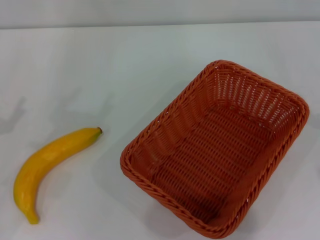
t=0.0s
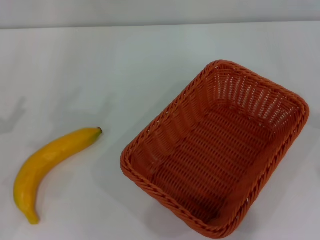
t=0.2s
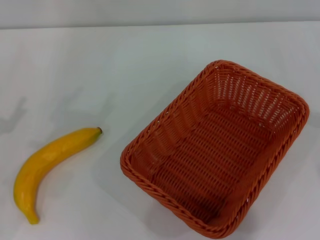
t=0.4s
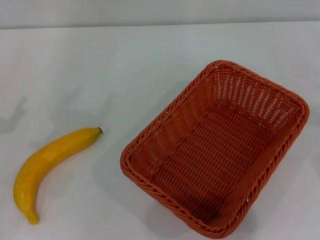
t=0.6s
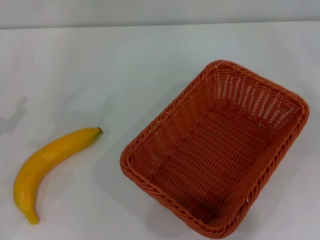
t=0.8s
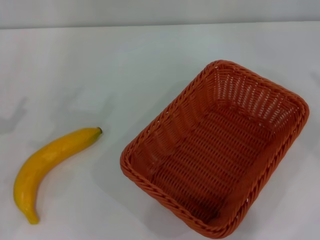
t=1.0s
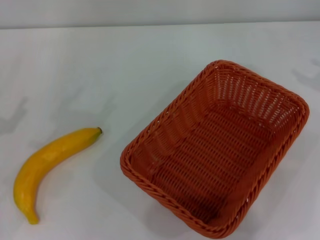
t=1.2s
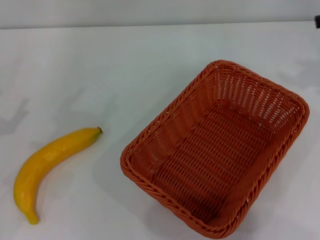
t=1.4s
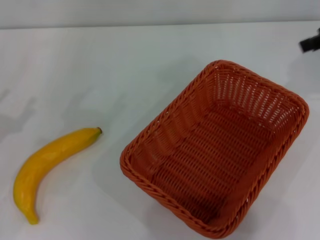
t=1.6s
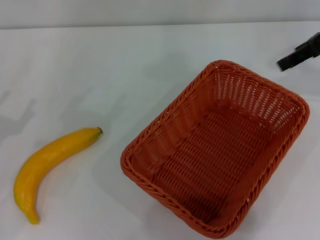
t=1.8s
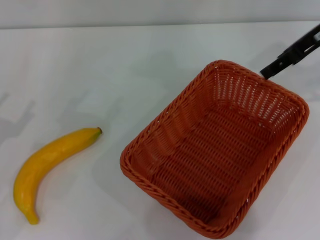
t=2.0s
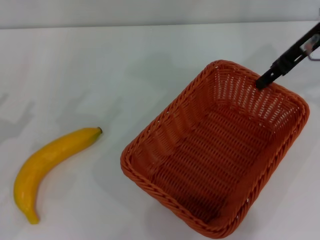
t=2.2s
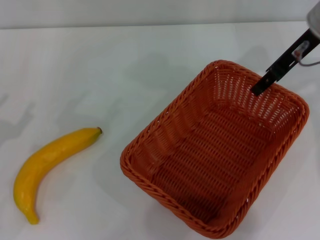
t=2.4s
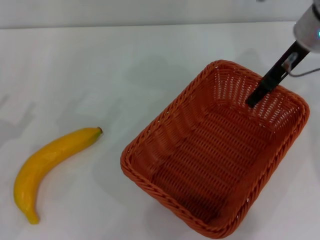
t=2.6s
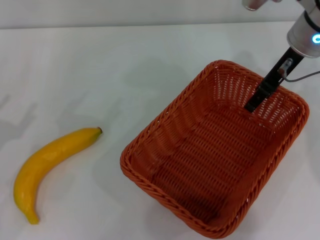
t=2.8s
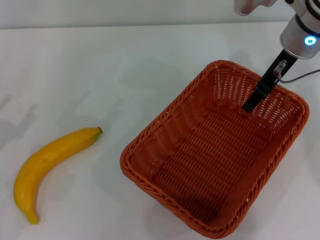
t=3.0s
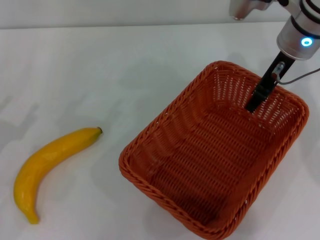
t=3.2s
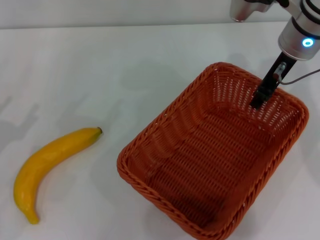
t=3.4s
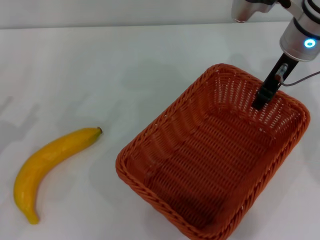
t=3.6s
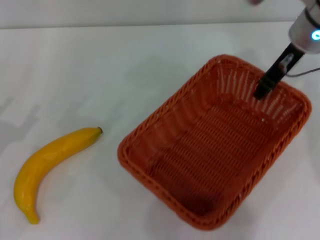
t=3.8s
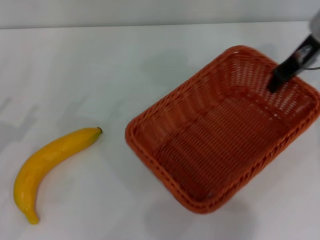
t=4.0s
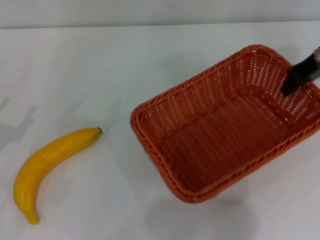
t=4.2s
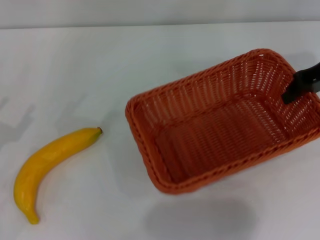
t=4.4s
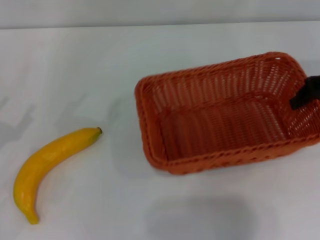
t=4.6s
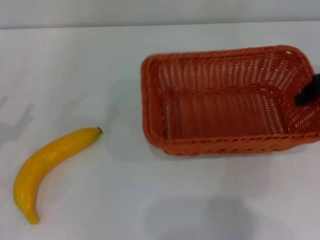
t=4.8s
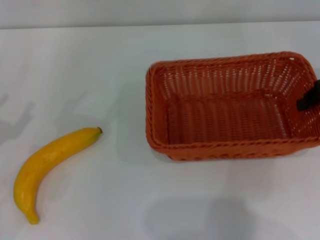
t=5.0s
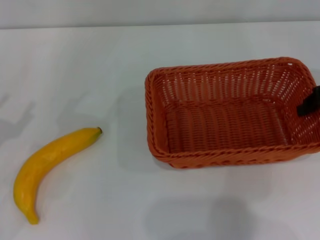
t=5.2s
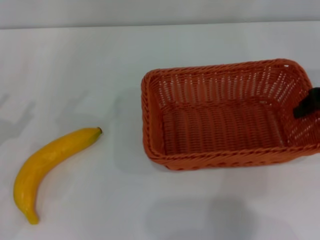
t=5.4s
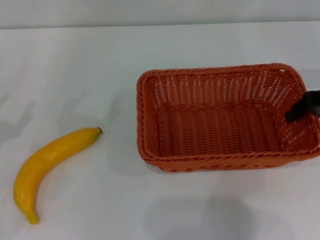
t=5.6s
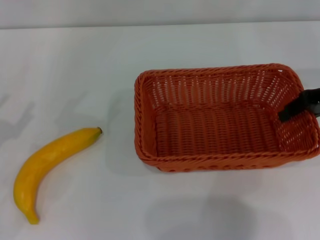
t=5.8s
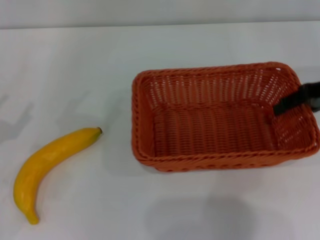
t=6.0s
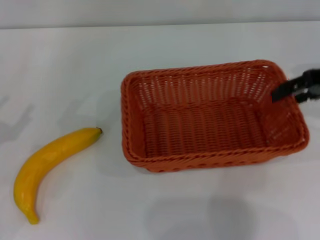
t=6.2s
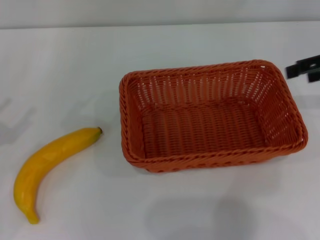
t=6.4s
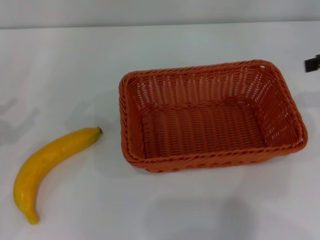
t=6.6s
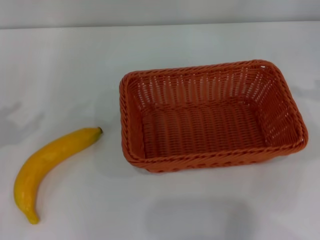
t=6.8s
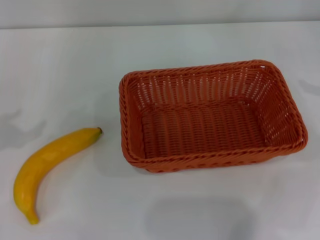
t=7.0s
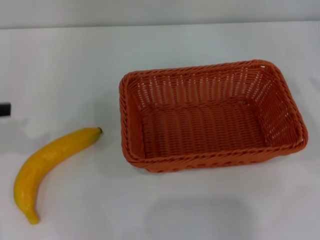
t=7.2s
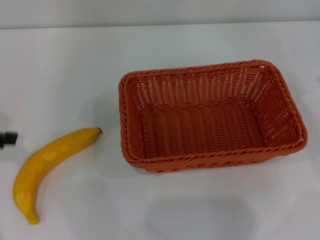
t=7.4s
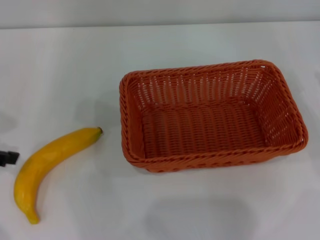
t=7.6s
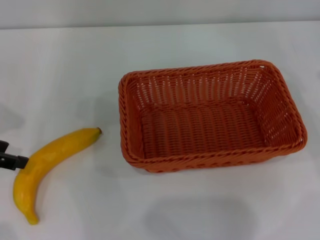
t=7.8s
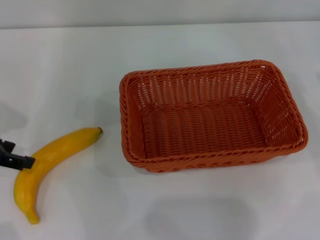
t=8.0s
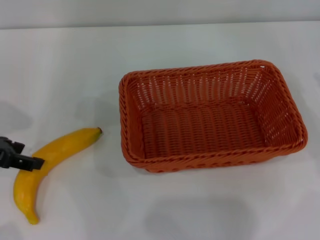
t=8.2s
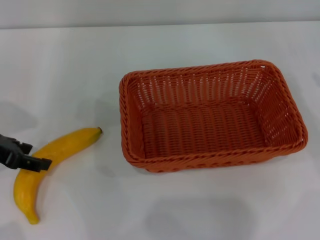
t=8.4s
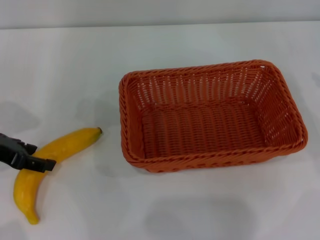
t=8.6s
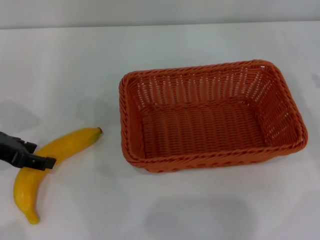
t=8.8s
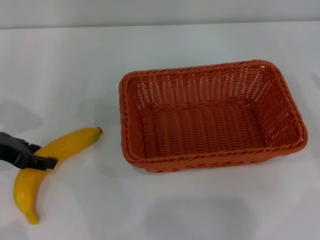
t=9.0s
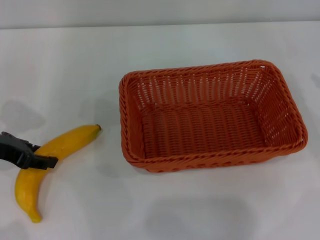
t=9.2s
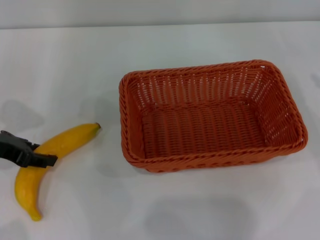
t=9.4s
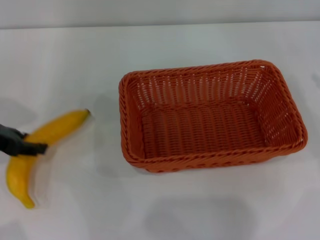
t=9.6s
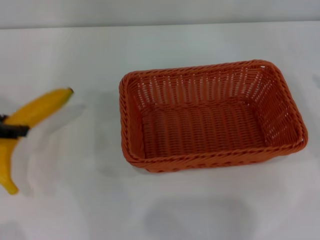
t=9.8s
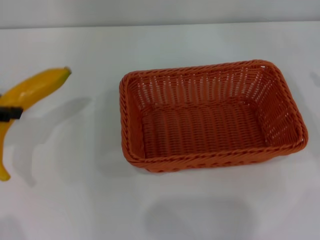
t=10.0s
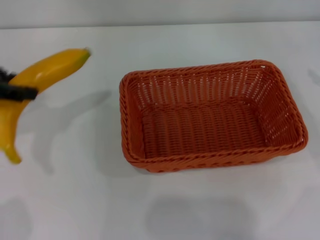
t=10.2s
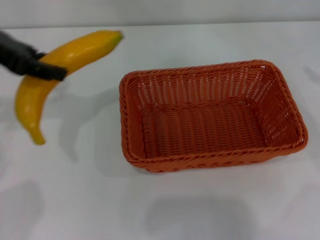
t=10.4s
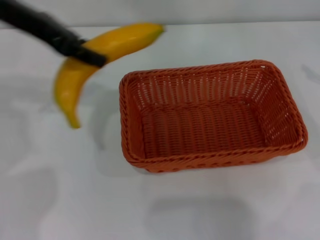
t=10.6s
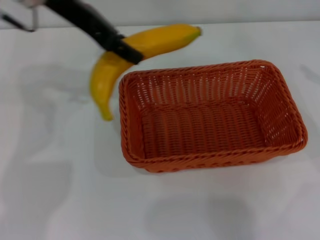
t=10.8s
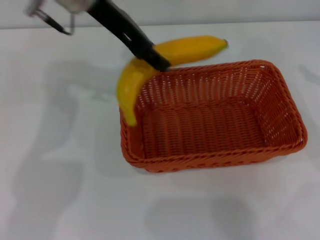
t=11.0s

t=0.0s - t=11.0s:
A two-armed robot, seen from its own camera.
Step, t=0.0s - t=3.8s: Pick up the light basket with the right gripper.
Step, t=4.0s - t=6.2s: Place the light basket in the center of view with the right gripper.
Step, t=6.4s - t=9.6s: Pick up the banana with the left gripper.
t=1.6s - t=3.2s: The right gripper travels to the left and downward by roughly 15 cm.
t=3.2s - t=4.8s: The right gripper moves to the right and backward, roughly 15 cm, and closes up.
t=4.8s - t=6.2s: The right gripper opens.
t=6.2s - t=7.8s: The left gripper is displaced forward and upward by some 10 cm. Meanwhile the right gripper shifts approximately 15 cm to the right and backward.
t=7.8s - t=9.4s: The left gripper shifts by some 5 cm, and closes up.
t=9.4s - t=11.0s: The left gripper shifts about 25 cm to the right, upward and forward.

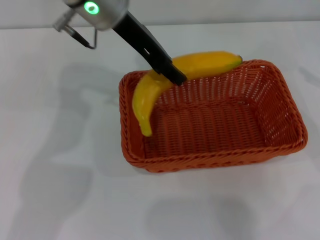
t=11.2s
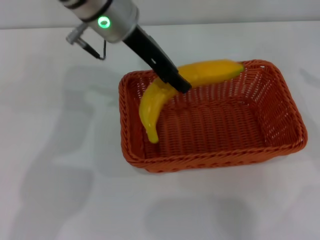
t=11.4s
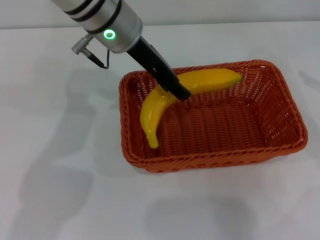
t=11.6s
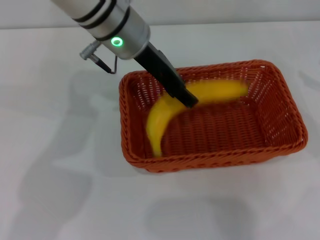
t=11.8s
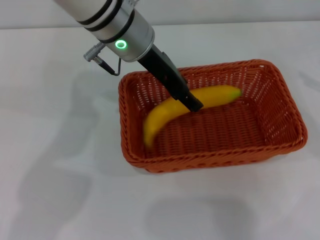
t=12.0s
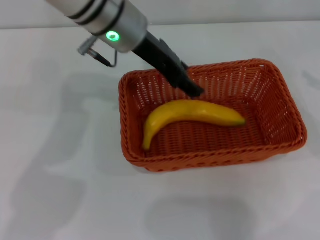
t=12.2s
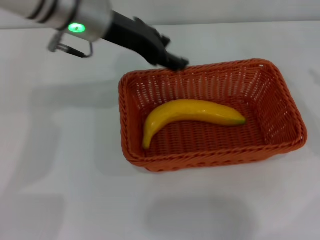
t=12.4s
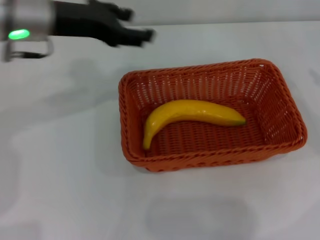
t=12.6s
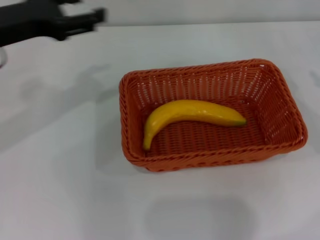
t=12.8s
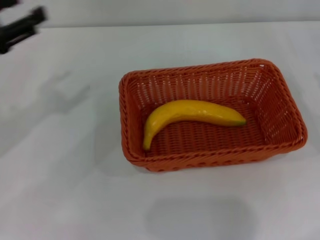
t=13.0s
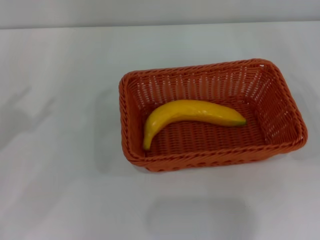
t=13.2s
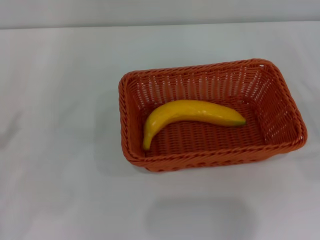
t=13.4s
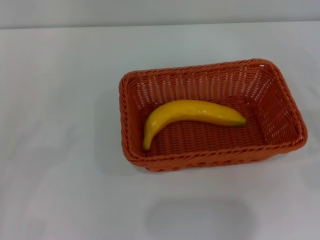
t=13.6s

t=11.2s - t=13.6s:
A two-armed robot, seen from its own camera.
t=11.2s - t=12.4s: The left gripper opens up.
t=12.4s - t=13.6s: The right gripper heads downward and backward, covering approximately 15 cm. Meanwhile the left gripper moves to the left, backward and downward, approximately 40 cm.

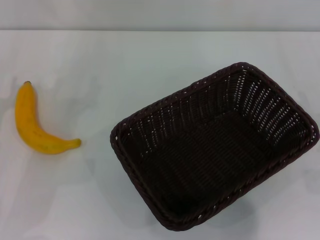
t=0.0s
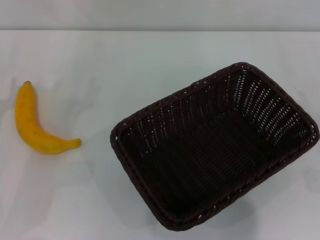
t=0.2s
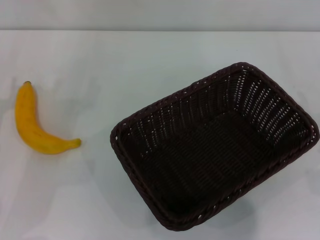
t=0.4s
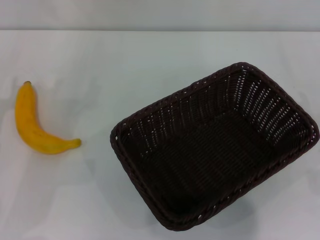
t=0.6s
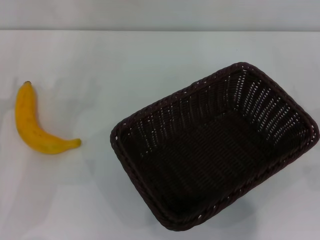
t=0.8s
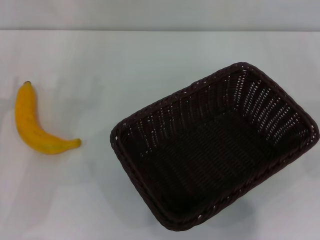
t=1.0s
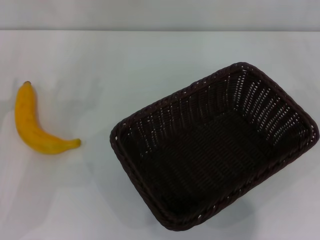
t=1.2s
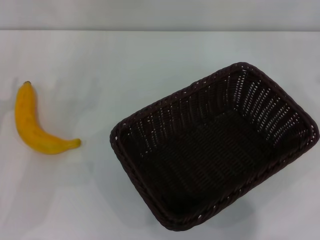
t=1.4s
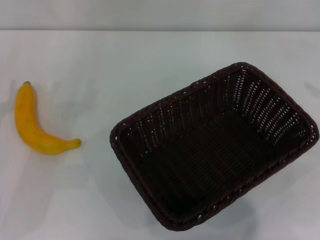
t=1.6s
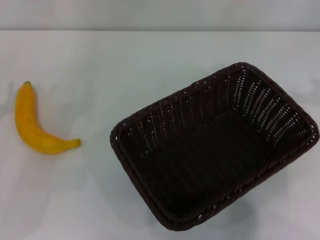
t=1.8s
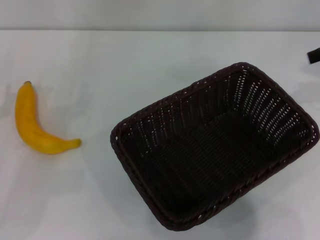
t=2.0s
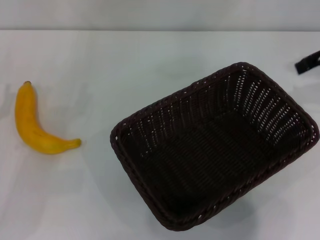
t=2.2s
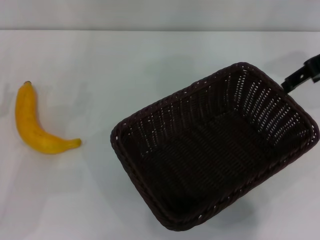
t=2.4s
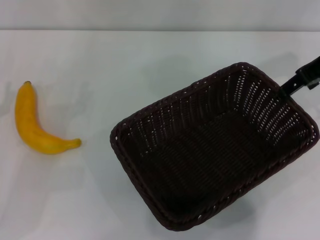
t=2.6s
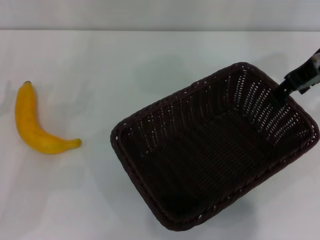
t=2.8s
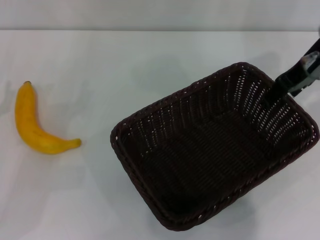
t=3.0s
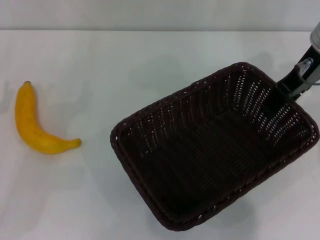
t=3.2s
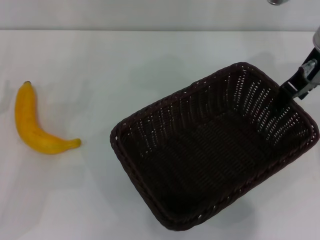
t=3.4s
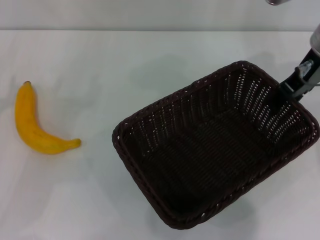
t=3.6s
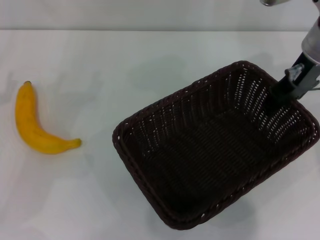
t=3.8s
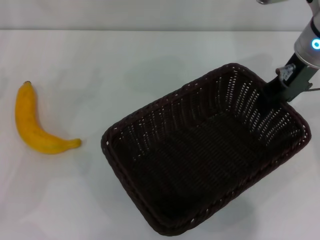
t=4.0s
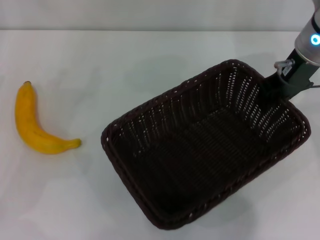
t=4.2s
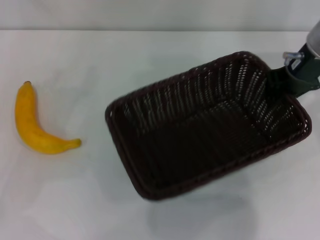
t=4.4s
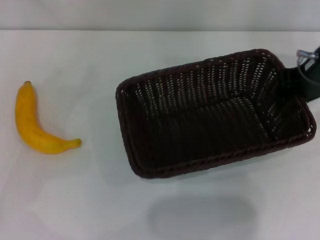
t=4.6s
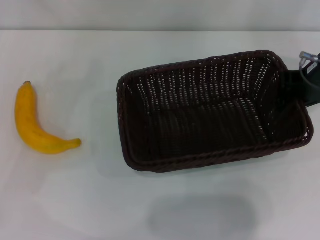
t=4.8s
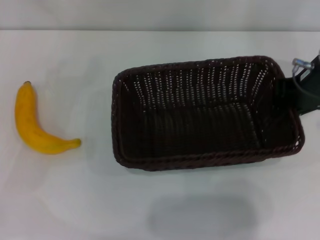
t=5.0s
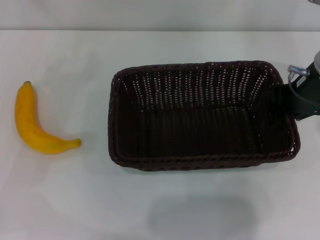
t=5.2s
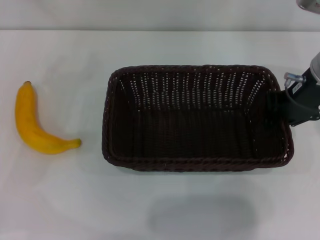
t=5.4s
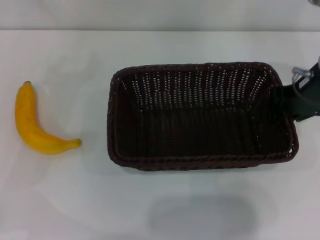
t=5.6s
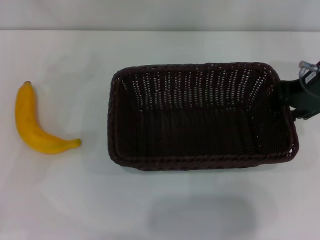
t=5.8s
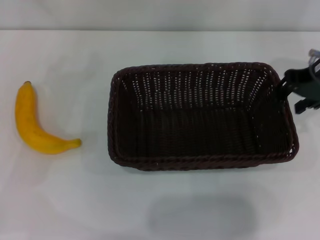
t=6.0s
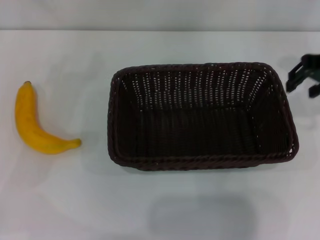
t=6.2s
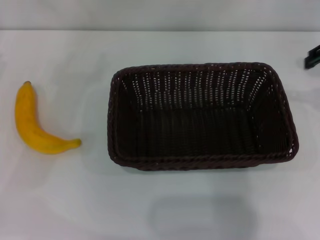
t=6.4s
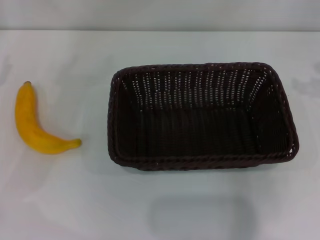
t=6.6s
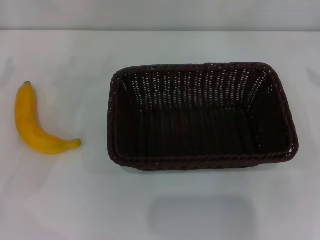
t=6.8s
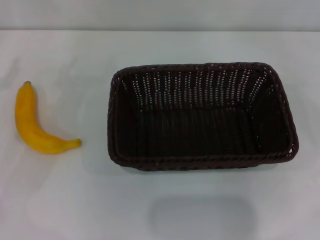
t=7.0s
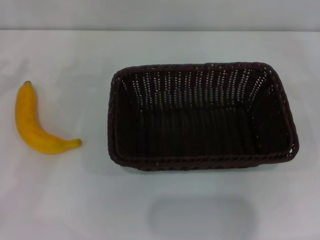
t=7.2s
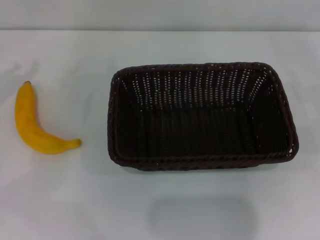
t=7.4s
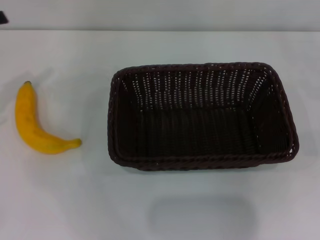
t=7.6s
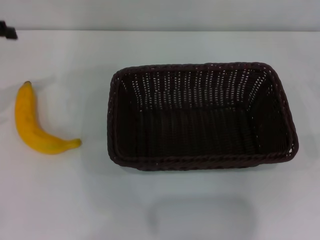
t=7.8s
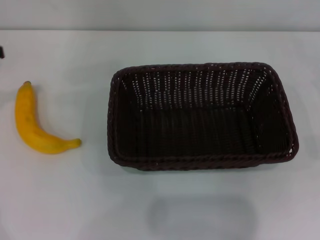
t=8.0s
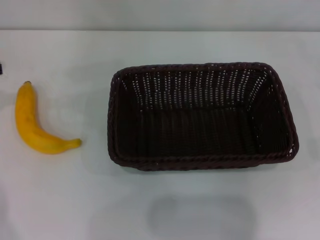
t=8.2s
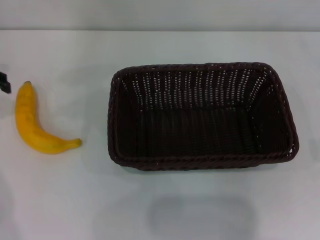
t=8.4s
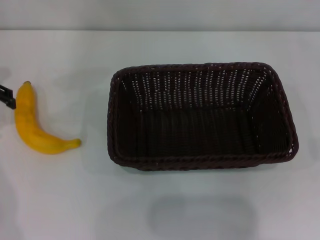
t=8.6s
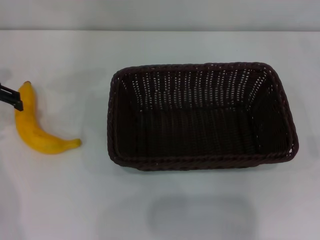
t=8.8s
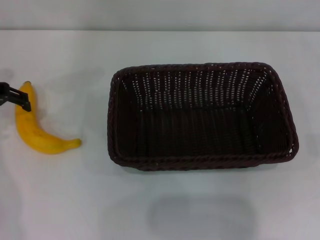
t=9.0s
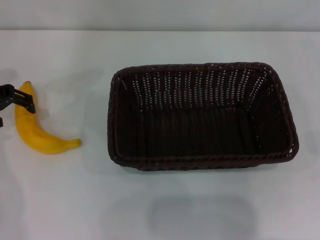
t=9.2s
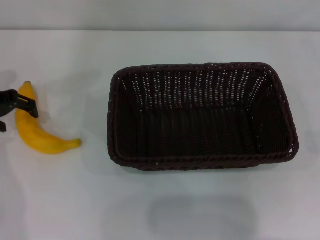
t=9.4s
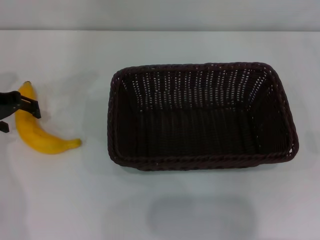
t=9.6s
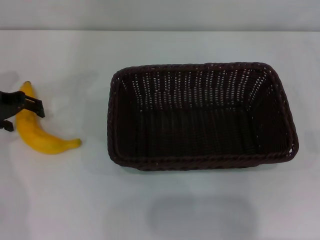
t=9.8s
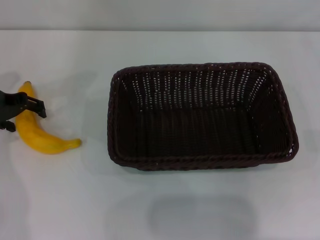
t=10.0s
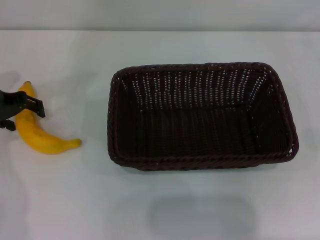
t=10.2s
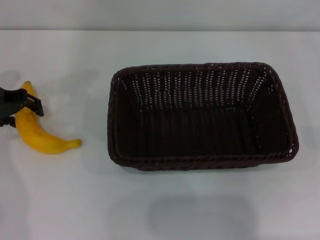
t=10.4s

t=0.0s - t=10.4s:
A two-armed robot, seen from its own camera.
Step, t=0.0s - t=4.0s: Pick up the dark basket with the right gripper.
Step, t=4.4s - t=6.0s: Place the dark basket in the center of view with the right gripper.
t=1.4s - t=3.0s: The right gripper shifts about 25 cm to the left.
t=3.0s - t=4.4s: The right gripper closes its fingers; the left gripper shifts about 5 cm upward.
t=4.4s - t=6.0s: The grippers stay close to where they were, moving slightly.
t=6.0s - t=7.4s: The right gripper travels to the right and downward by approximately 25 cm.
t=7.4s - t=9.0s: The left gripper goes roughly 5 cm forward, and reaches approximately 5 cm upward, then returns.
t=9.0s - t=10.4s: The grippers make only small movements.
